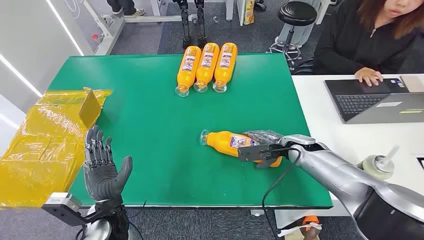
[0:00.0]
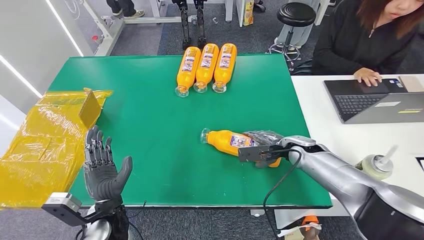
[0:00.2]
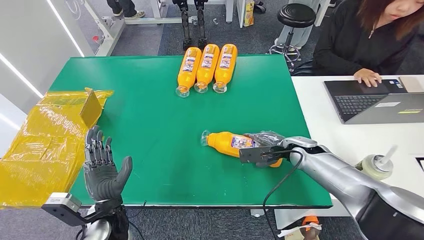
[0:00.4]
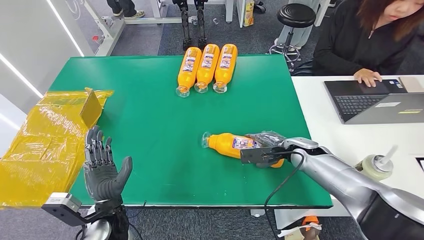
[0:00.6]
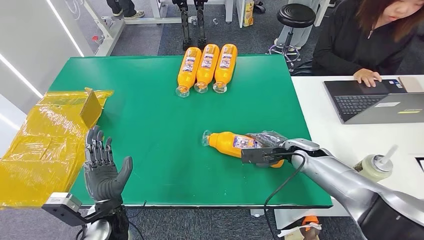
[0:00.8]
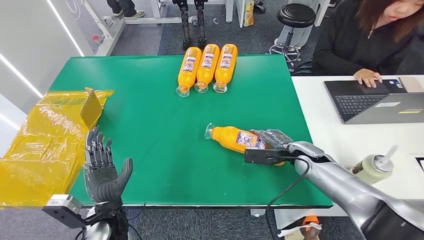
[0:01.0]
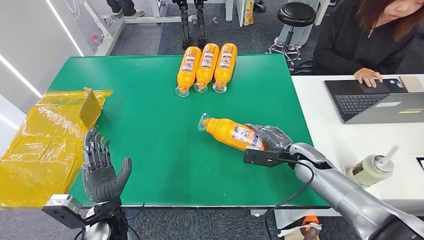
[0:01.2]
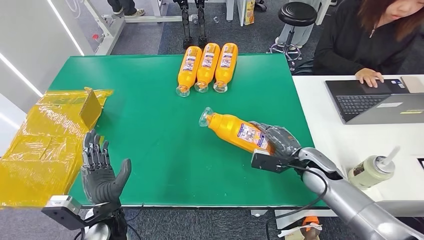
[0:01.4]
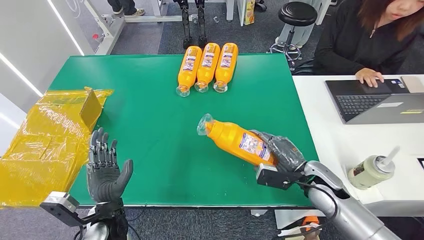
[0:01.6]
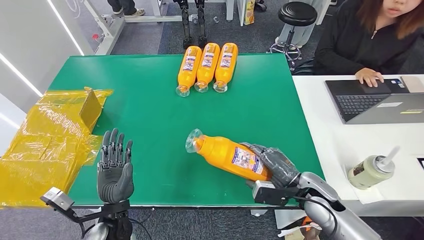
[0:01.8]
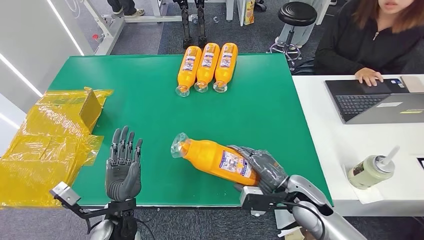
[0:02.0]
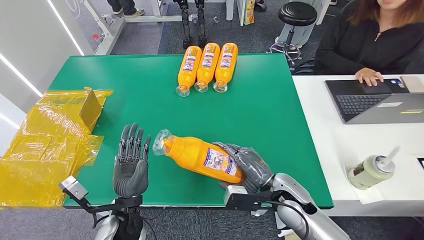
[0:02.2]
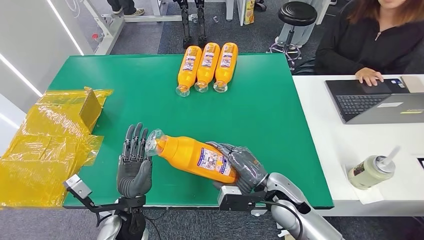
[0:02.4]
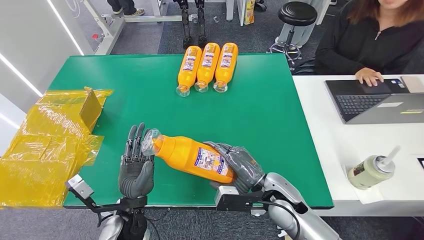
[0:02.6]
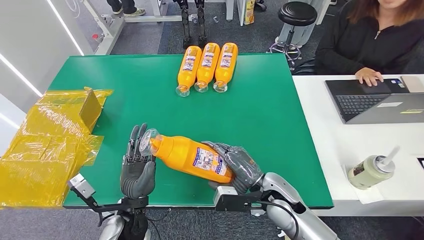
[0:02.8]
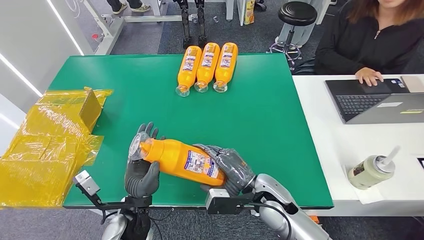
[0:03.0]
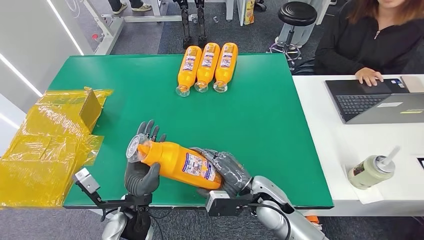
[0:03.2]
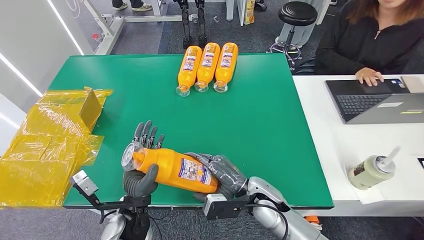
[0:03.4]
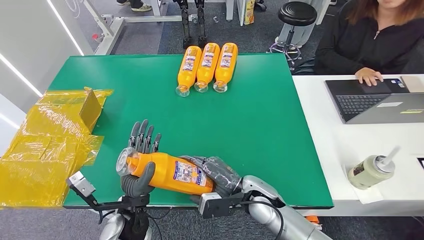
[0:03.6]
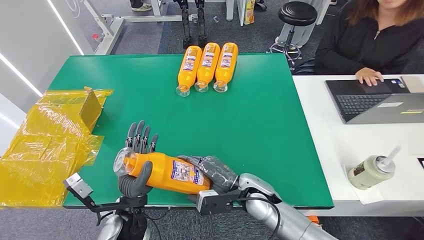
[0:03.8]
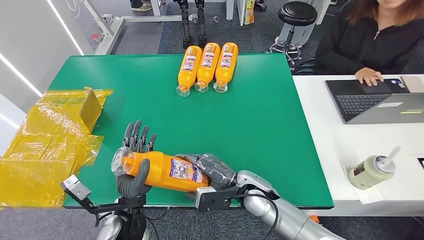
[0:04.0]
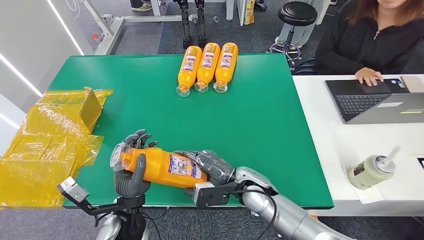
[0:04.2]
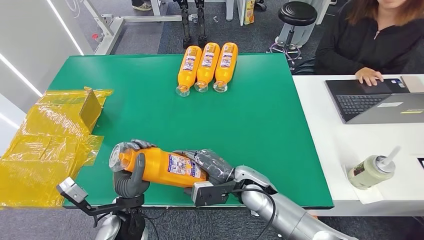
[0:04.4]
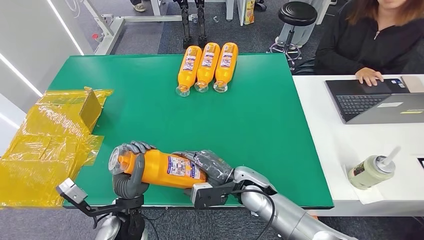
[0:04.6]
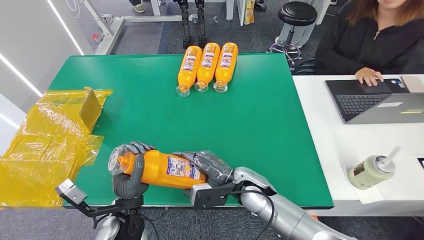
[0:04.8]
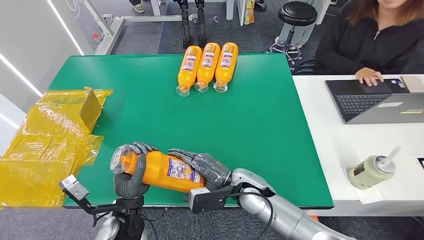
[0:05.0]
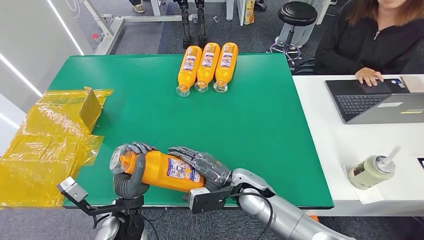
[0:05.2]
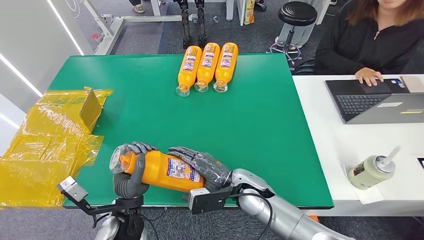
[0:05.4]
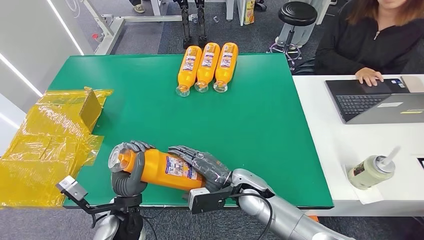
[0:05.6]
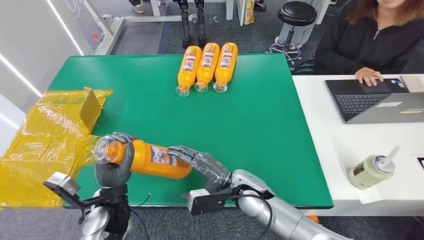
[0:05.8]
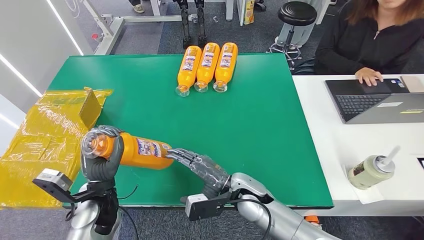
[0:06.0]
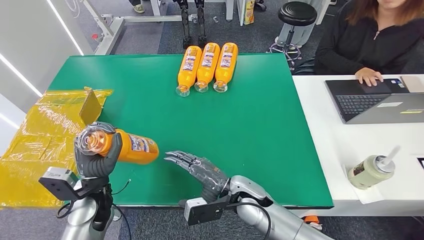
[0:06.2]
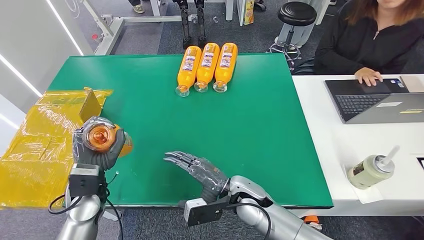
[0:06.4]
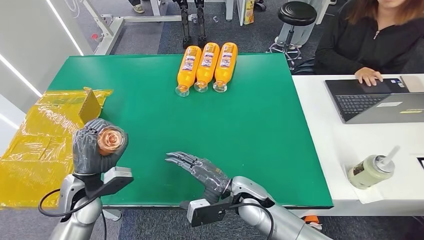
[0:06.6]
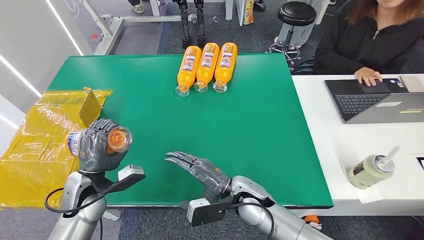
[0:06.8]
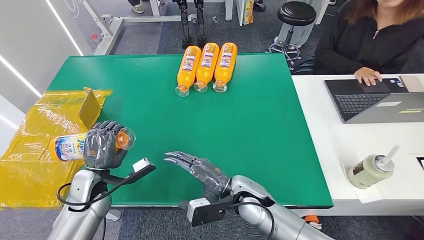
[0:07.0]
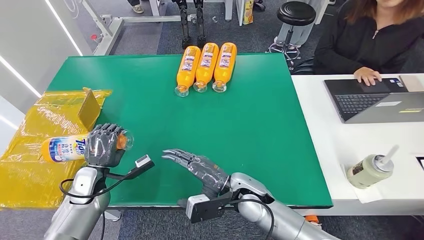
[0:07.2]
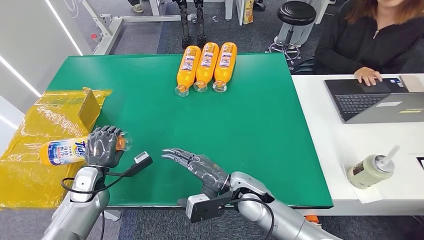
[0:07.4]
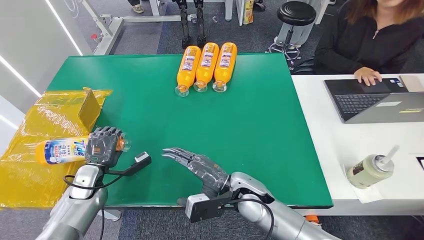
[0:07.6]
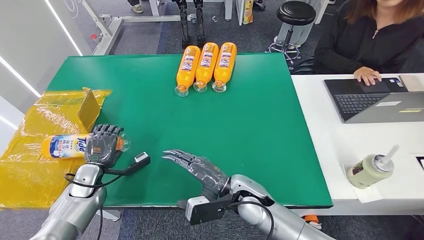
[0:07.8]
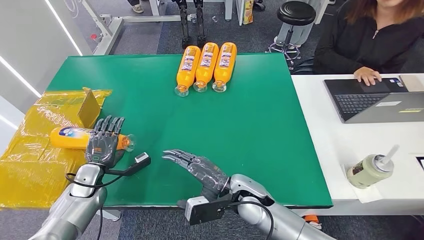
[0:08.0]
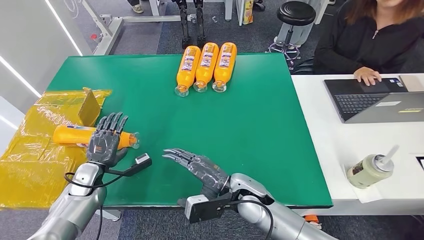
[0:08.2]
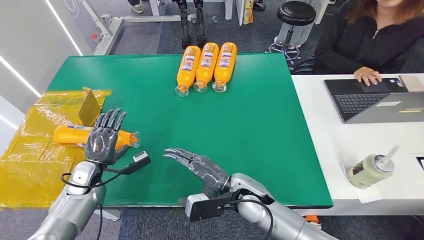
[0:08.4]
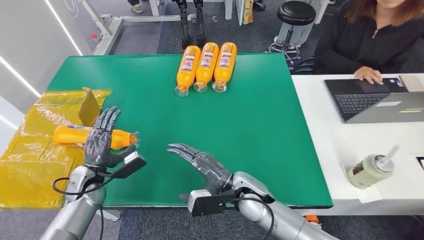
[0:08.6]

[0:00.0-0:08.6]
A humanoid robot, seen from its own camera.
Step, 0:00.0 to 0:02.2: Pick up the bottle from the table.
Step, 0:02.6 to 0:08.6: Turn the bottle to the front side.
0:02.8 to 0:04.4: The right hand travels to the left by approximately 5 cm.
0:04.4 to 0:05.8: The left hand shifts by about 5 cm.
0:05.8 to 0:07.2: The left hand is displaced to the left and forward by approximately 15 cm.
